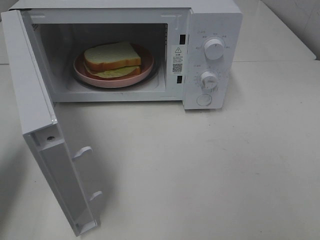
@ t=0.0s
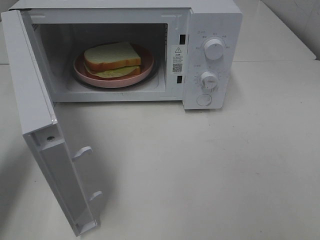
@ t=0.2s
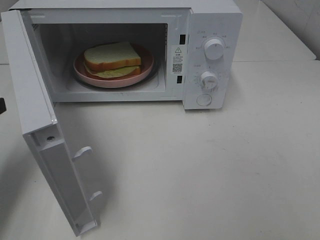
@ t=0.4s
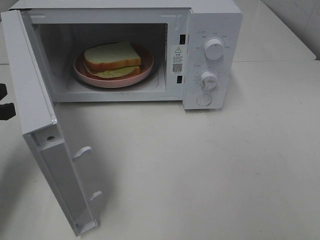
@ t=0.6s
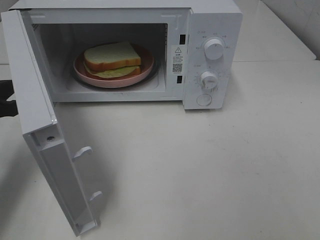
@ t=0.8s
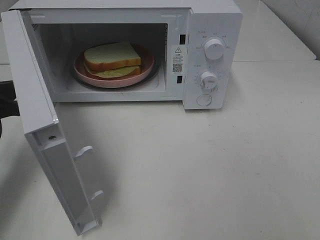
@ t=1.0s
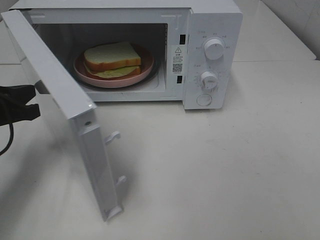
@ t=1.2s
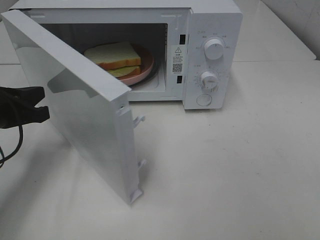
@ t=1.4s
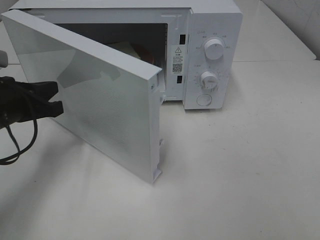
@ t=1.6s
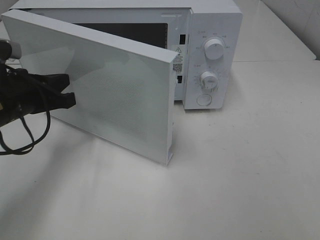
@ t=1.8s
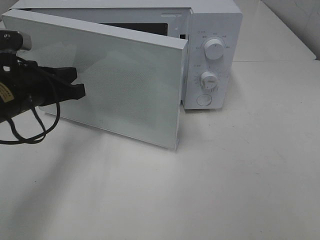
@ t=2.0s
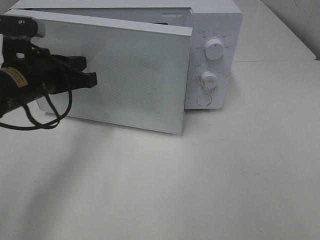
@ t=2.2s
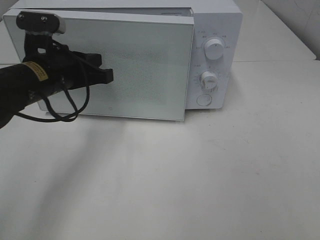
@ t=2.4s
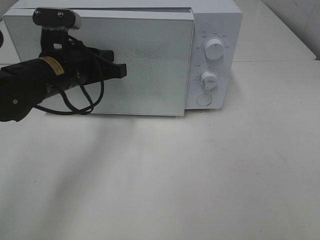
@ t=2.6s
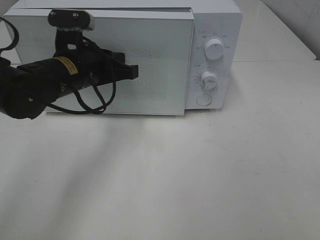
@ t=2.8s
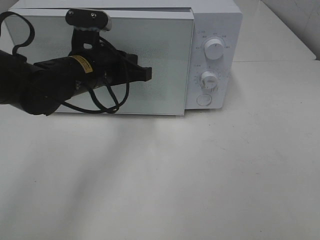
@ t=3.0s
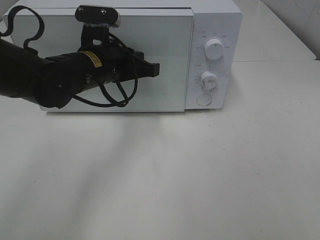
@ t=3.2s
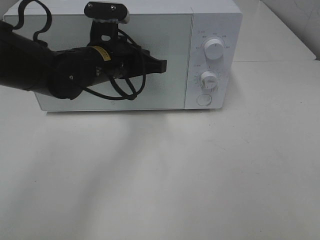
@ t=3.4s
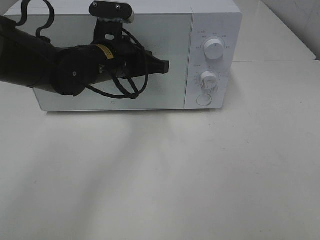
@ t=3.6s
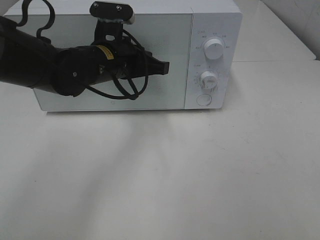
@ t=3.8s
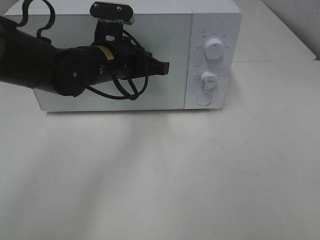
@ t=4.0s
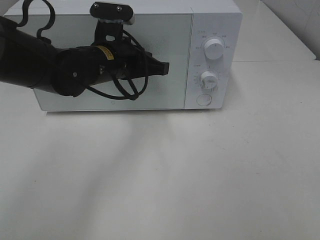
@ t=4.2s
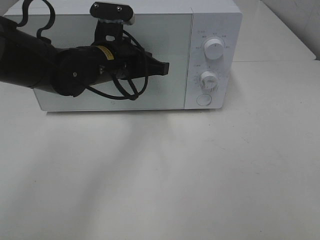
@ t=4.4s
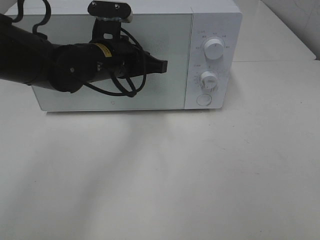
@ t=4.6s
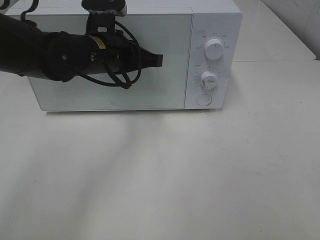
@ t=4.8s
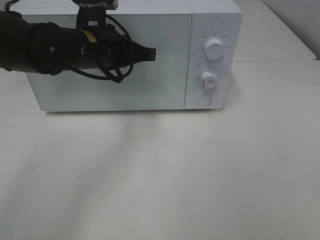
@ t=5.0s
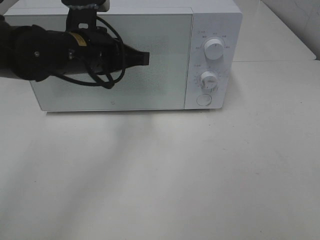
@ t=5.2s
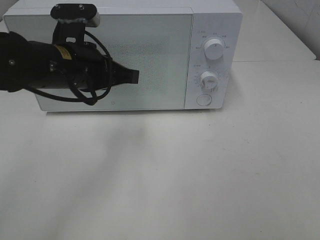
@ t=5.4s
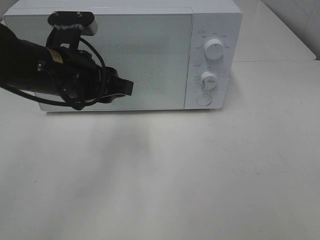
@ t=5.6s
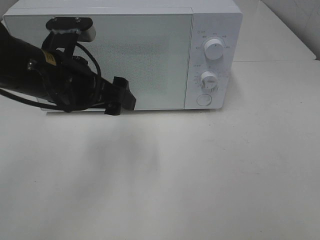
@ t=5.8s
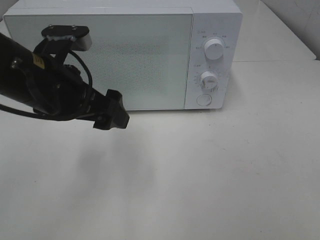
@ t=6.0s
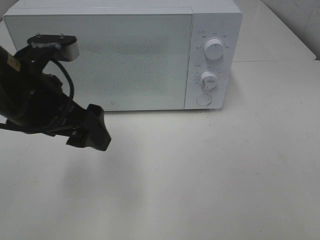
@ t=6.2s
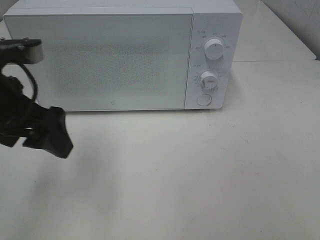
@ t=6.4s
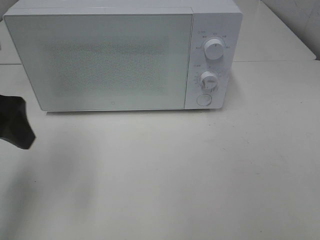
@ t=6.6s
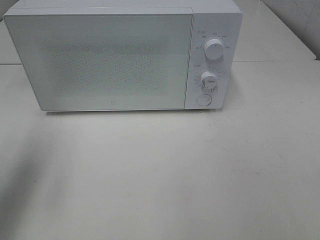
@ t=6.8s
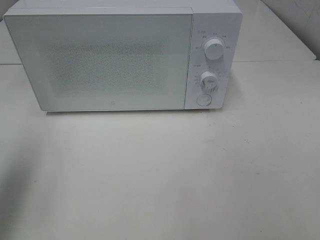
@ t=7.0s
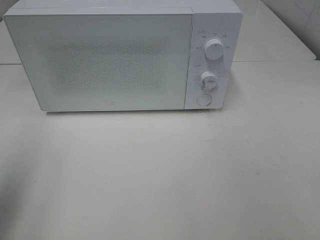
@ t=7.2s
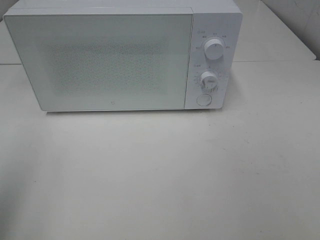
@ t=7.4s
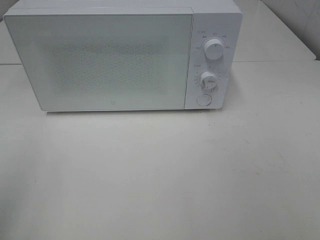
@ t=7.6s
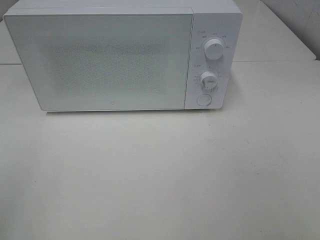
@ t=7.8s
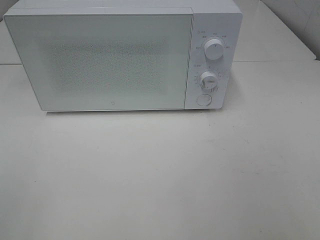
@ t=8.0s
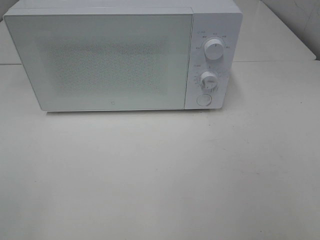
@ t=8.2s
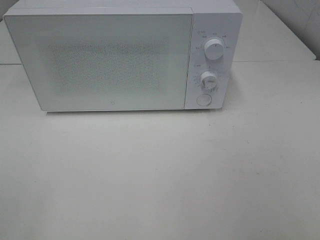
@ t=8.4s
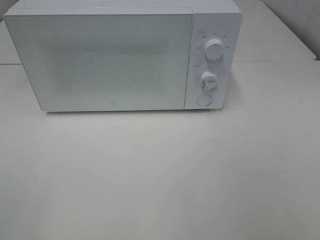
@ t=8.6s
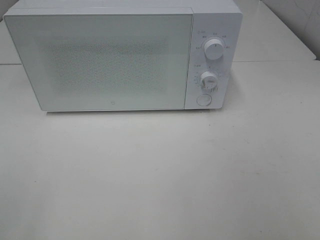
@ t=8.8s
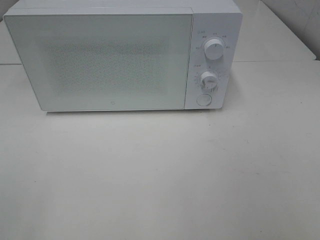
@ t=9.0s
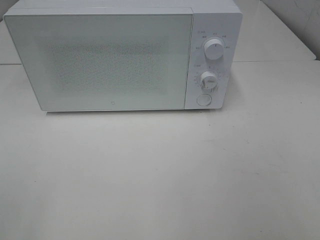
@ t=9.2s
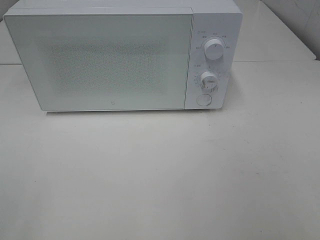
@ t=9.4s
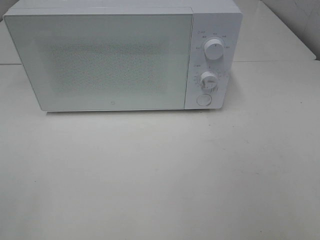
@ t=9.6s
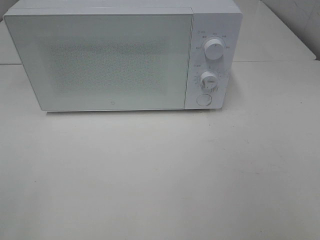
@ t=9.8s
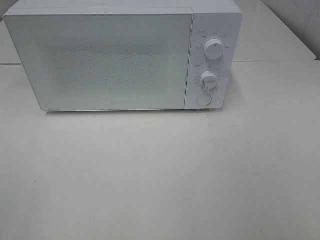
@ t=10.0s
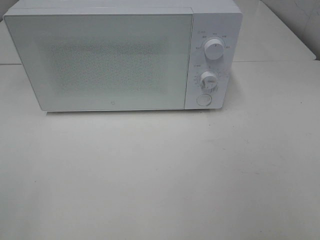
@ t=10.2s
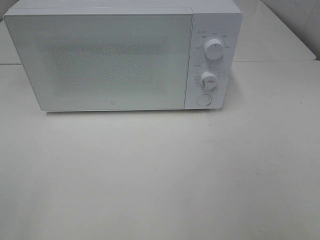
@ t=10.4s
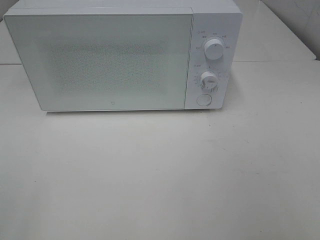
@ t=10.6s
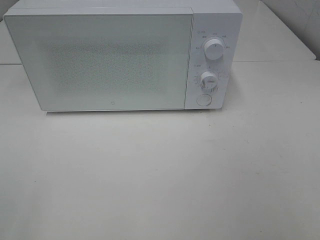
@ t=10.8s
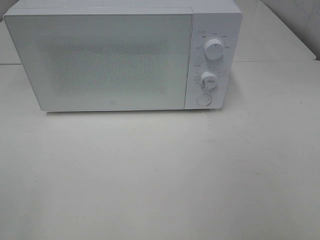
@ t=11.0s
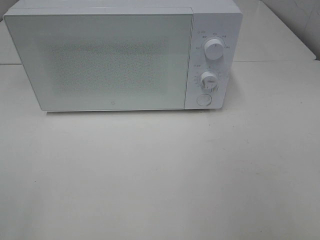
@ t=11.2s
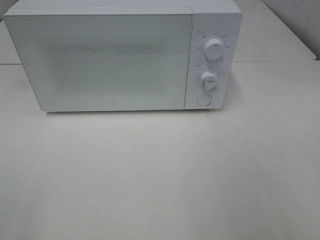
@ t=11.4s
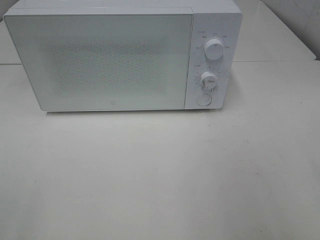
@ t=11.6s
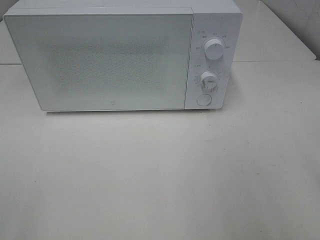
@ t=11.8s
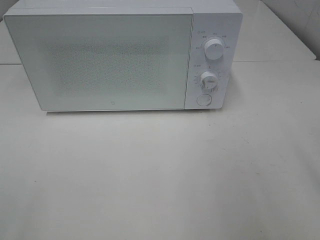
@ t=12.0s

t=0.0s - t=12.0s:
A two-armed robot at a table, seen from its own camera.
Task of the whole recording: Heat Sandwich.
Step, t=0.0s - t=5.8s: Left hand: close the microwave door.
t=0.0s - t=1.6s: The left gripper is displaced to the right, downward and forward by approximately 10 cm.
t=1.6s - t=3.0s: The left gripper is displaced to the right and forward by roughly 15 cm.
t=3.0s - t=4.4s: There are only small adjustments of the grippers.
t=4.4s - t=6.0s: The left gripper shifts some 10 cm backward and to the left, and opens up.
t=6.0s - t=7.6s: The left gripper heads backward, to the left and upward, covering about 25 cm.

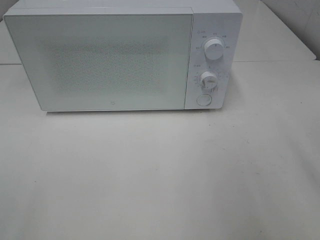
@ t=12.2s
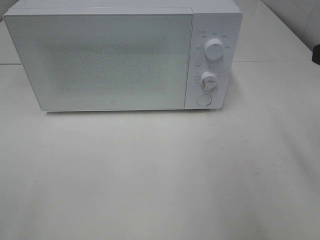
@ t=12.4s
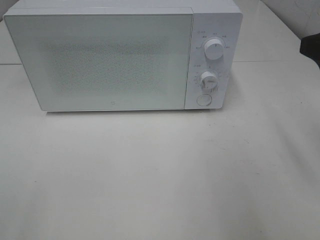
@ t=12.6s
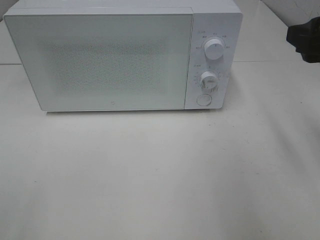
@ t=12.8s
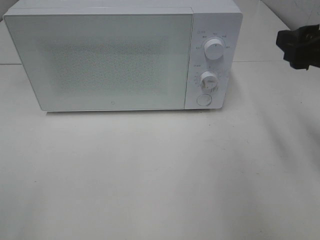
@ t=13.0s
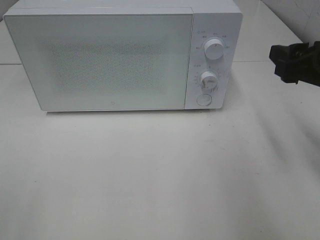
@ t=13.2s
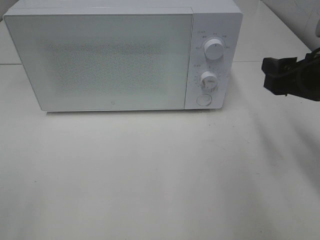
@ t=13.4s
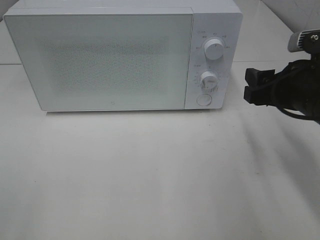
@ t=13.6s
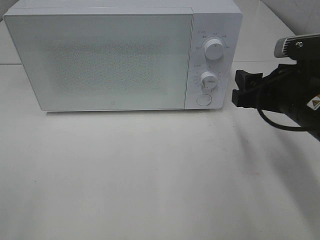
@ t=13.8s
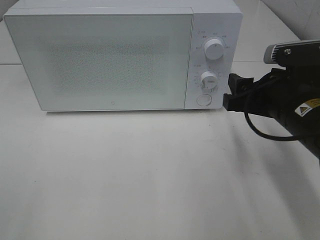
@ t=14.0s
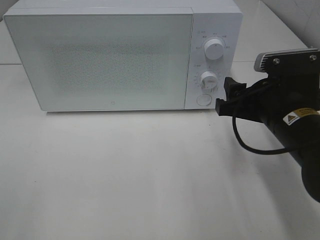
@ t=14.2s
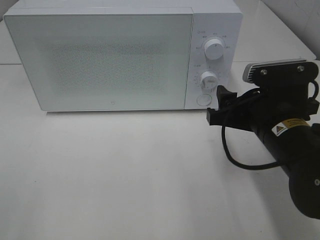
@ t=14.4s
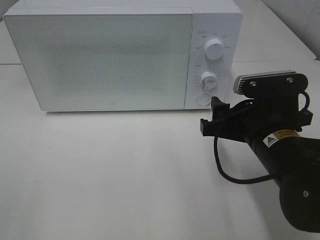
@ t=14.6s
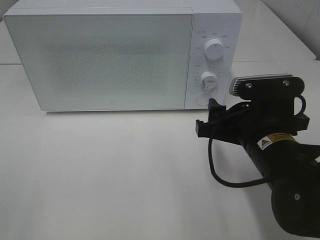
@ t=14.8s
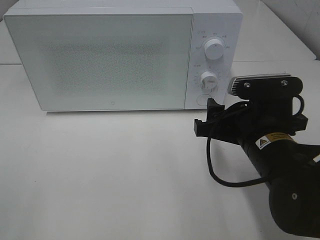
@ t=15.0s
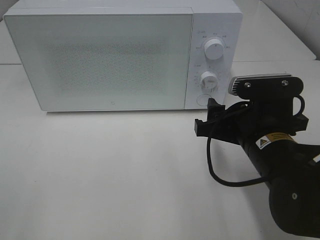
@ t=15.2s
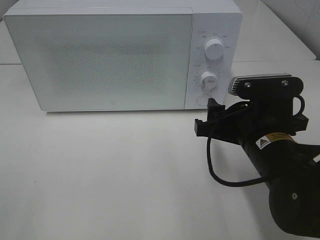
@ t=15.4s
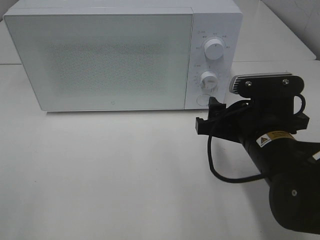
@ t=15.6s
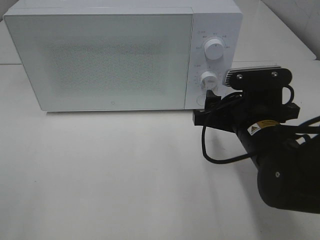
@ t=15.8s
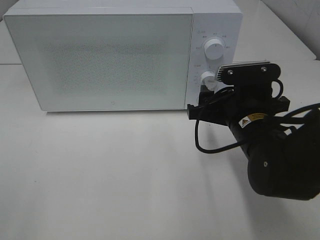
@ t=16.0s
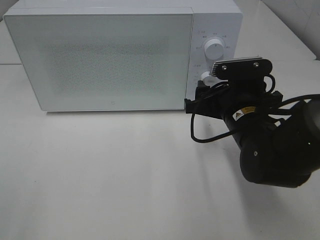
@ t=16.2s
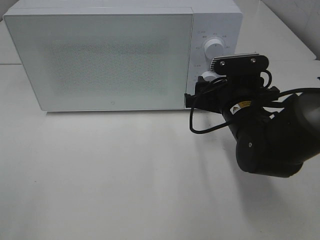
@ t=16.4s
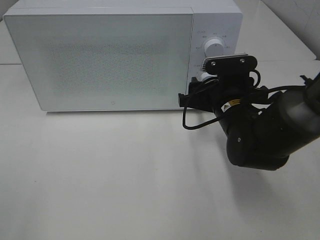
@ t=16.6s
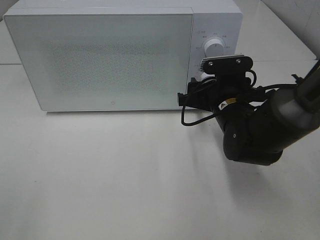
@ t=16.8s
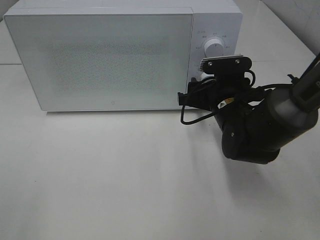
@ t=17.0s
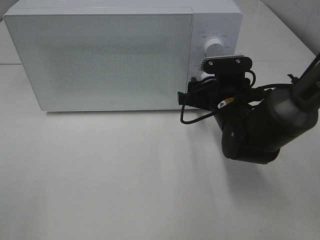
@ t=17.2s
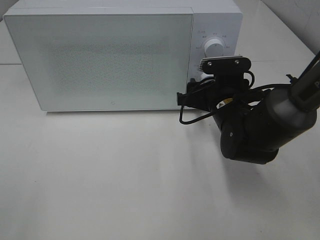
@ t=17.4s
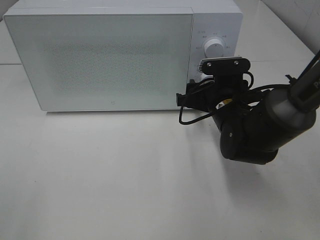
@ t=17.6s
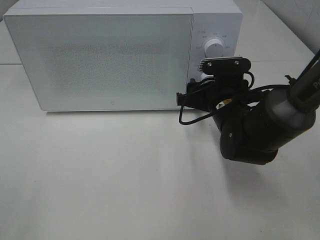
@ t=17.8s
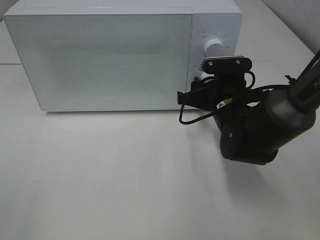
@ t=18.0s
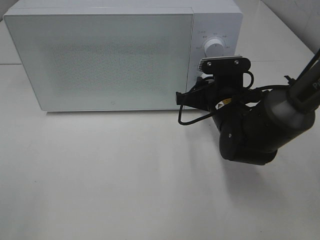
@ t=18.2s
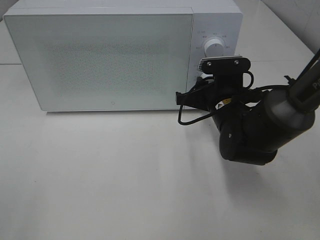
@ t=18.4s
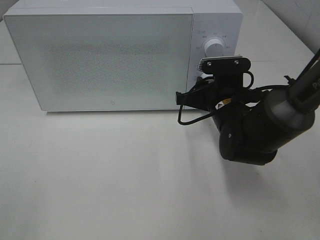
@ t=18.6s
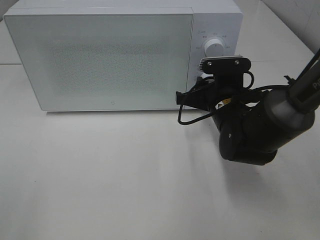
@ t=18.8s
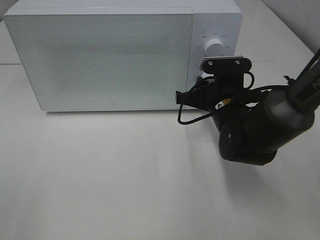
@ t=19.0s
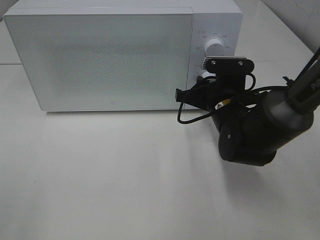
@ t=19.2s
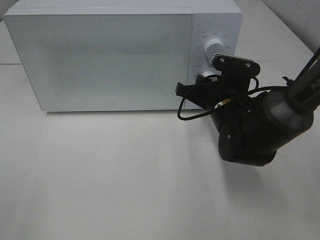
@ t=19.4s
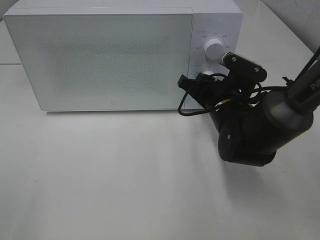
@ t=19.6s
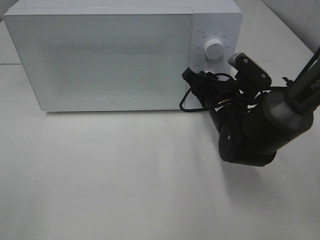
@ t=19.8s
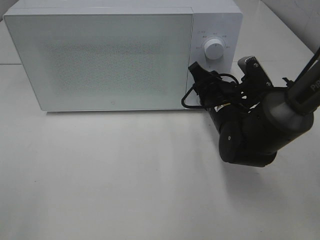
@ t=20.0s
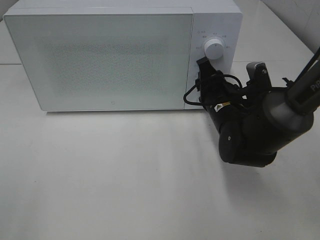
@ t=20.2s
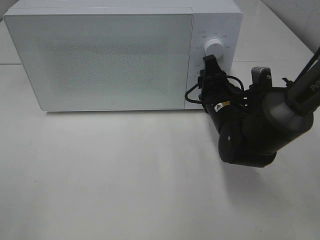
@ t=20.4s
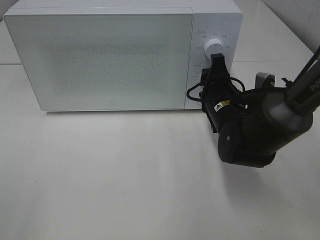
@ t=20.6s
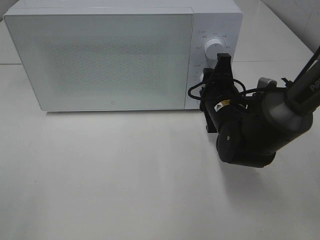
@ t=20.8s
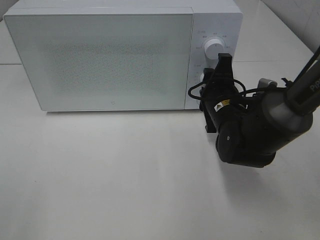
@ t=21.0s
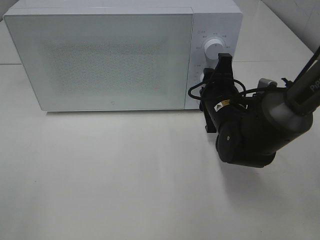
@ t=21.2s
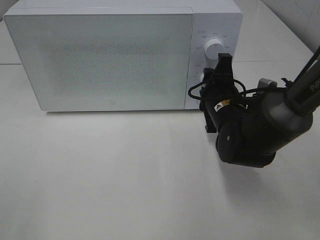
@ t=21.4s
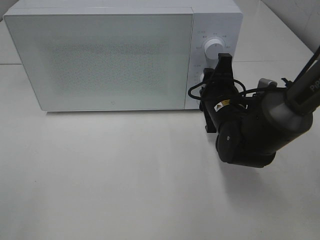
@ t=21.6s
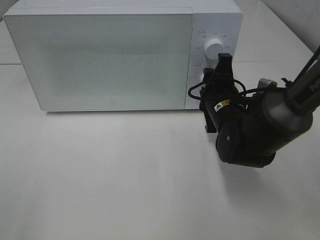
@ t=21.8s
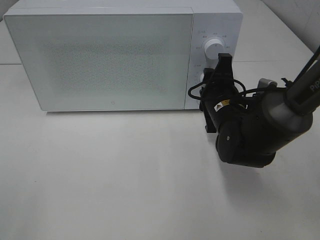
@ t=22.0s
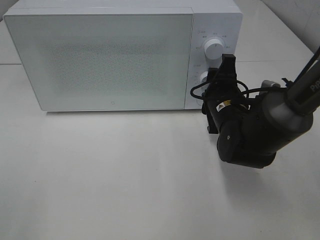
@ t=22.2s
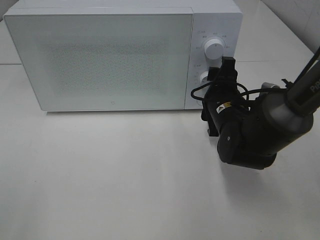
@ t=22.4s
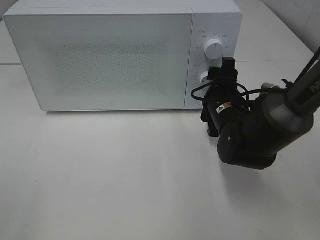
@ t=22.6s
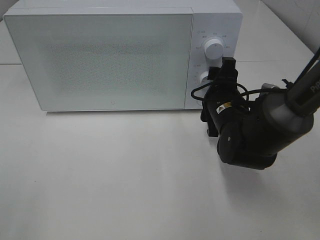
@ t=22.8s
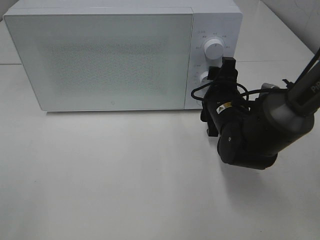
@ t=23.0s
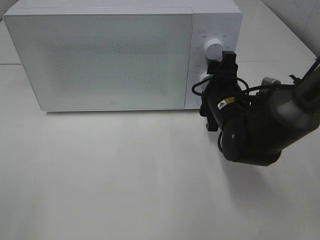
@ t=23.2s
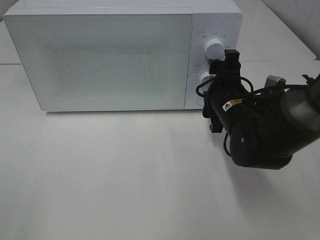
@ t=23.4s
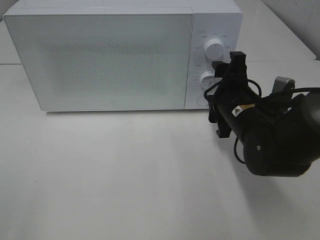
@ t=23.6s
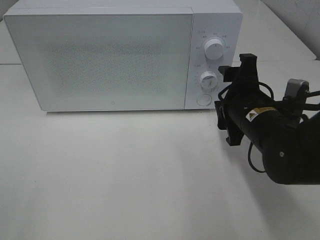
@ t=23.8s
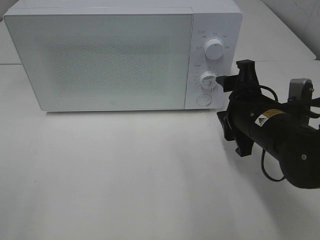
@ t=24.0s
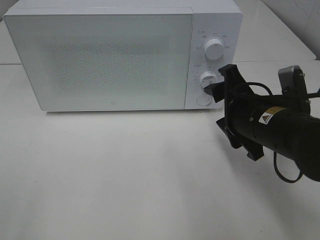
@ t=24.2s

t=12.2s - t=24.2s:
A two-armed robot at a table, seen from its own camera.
Task of the whole recording: Heat Sandwich.
Step, t=12.2s - t=23.2s: Right hand: twist timer button.
t=12.2s - t=13.8s: The right gripper travels downward, forward and to the left by approximately 15 cm.
t=13.8s - t=15.2s: The right gripper shifts some 5 cm to the left.
t=15.2s - t=16.6s: The right gripper is displaced forward by approximately 10 cm.
t=16.6s - t=18.2s: There are only small adjustments of the grippers.
t=21.2s - t=22.6s: Both grippers stay put.
t=22.6s - t=24.2s: The right gripper travels backward and upward by approximately 10 cm.
